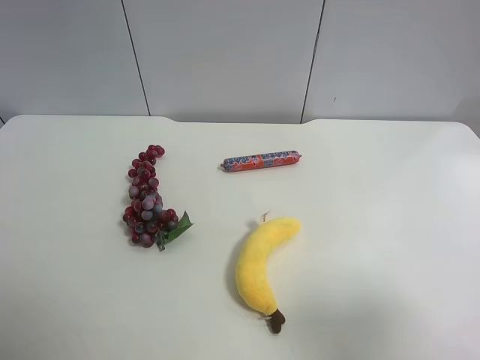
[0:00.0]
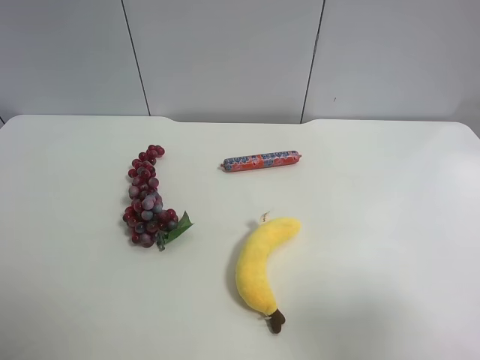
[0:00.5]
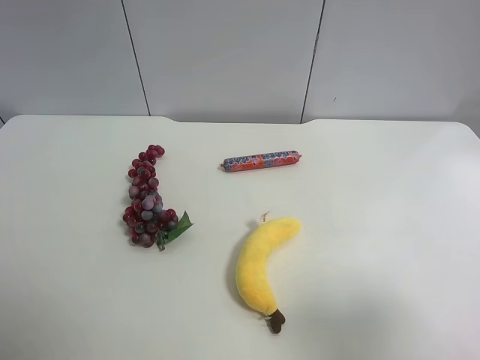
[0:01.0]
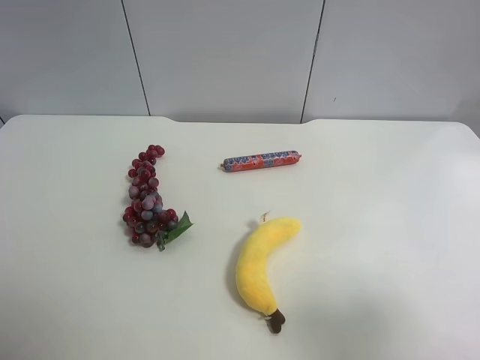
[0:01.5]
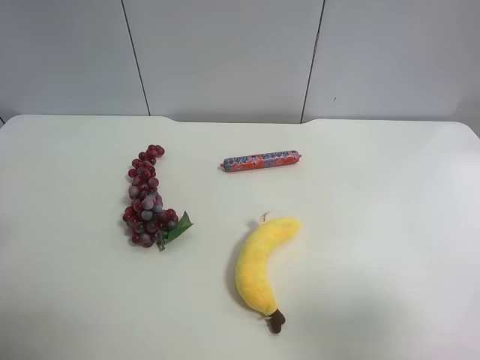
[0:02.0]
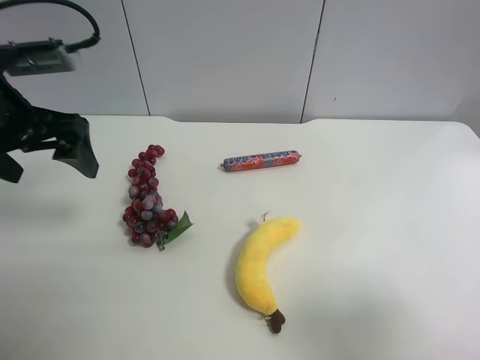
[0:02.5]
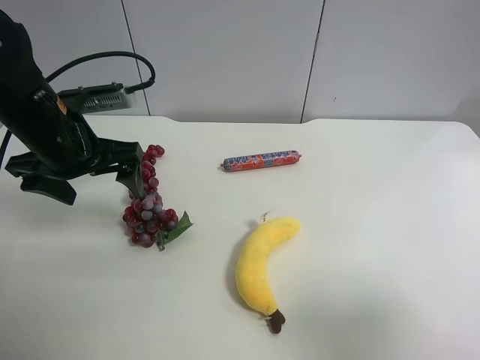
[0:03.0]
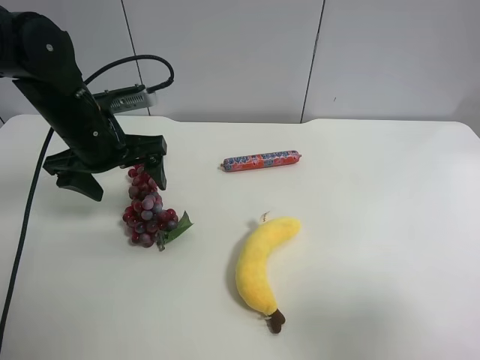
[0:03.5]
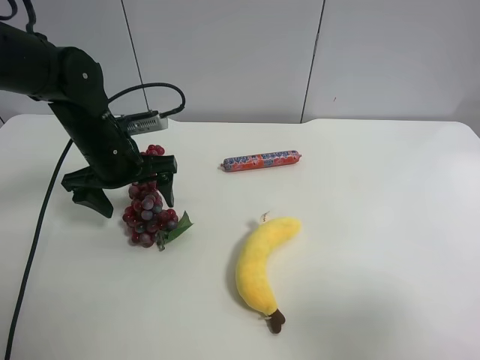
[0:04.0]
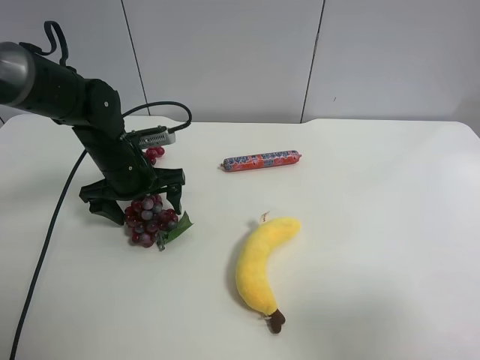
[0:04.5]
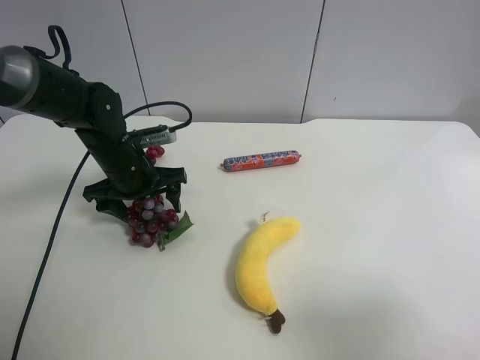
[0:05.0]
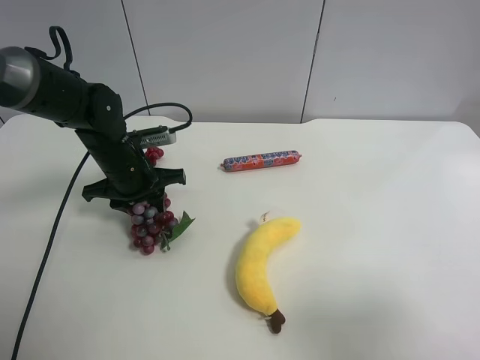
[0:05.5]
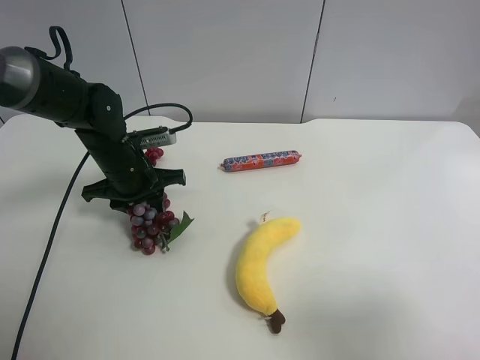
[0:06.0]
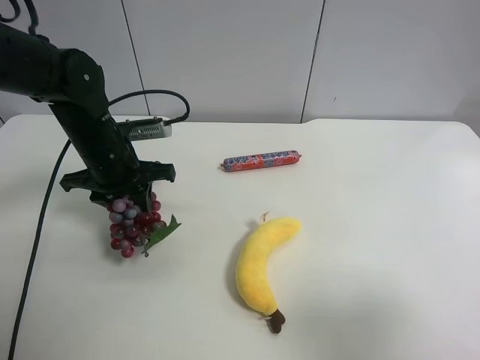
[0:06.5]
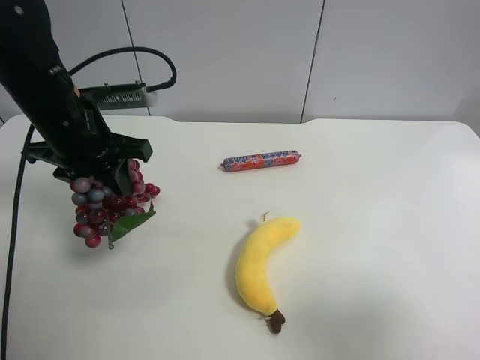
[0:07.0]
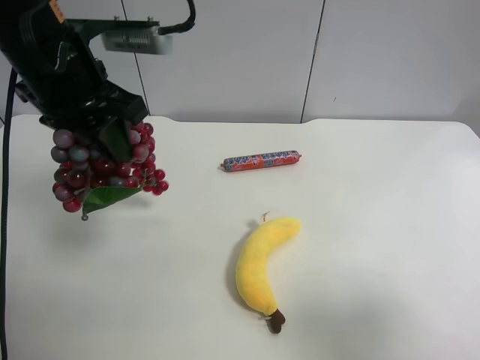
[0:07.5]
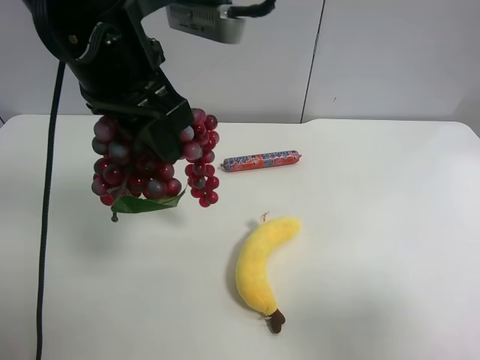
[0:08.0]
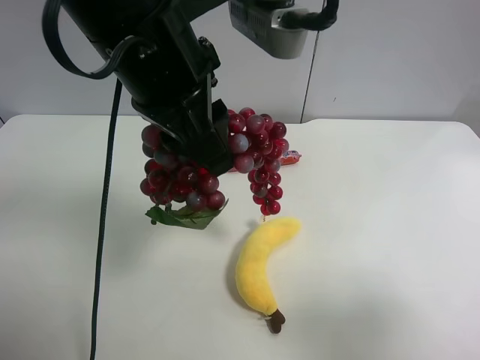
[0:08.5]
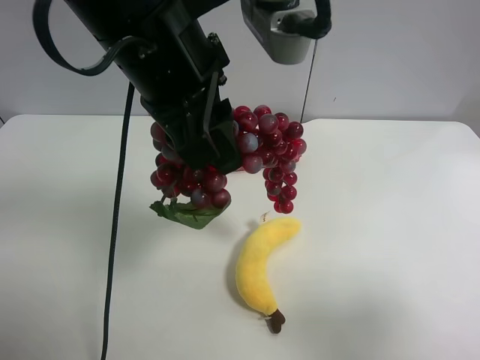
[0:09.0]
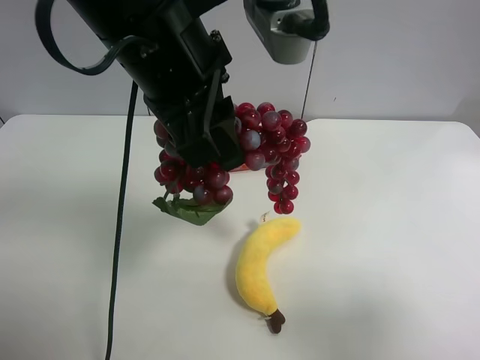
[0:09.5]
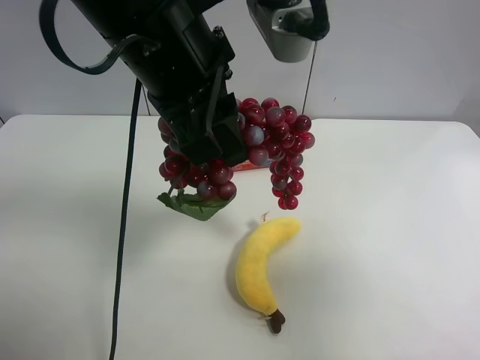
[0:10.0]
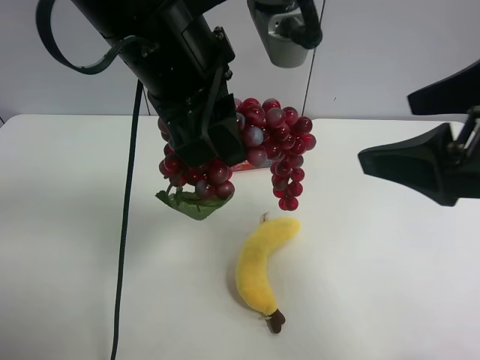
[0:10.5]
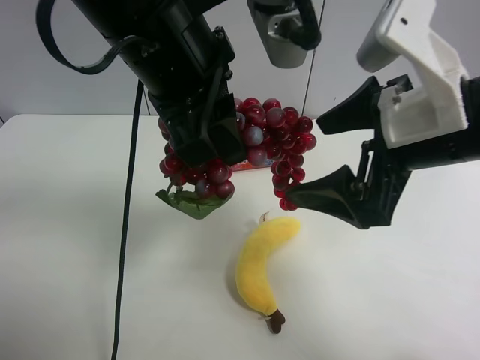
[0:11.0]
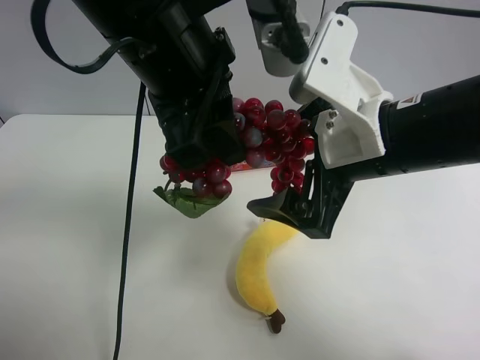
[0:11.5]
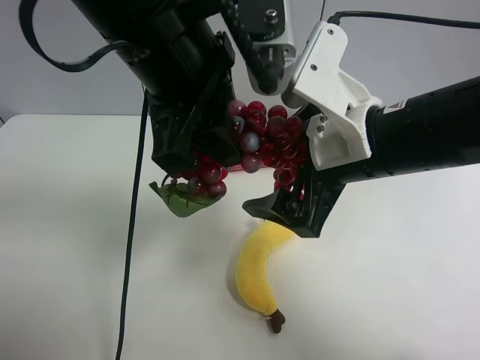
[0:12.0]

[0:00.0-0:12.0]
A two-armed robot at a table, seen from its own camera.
Task of the whole recording: use the left gripper to pick up the item and transfer it from the left gripper to the right gripper.
0:02.0 to 0:04.0: The left gripper heads downward, forward and to the right, covering roughly 25 cm.
0:04.0 to 0:06.0: The left gripper closes up.
0:06.0 to 0:08.0: The left gripper goes roughly 25 cm upward and backward.
0:08.0 to 0:10.0: The right gripper goes approximately 5 cm forward and upward.
0:10.0 to 0:12.0: The right gripper goes approximately 20 cm to the left, forward and downward.

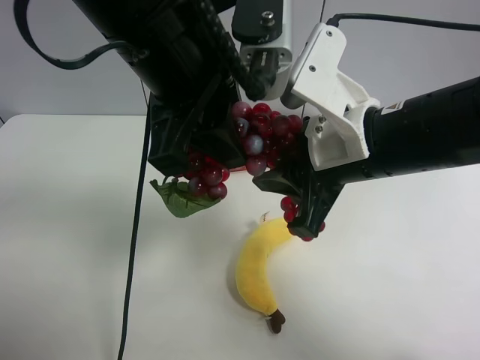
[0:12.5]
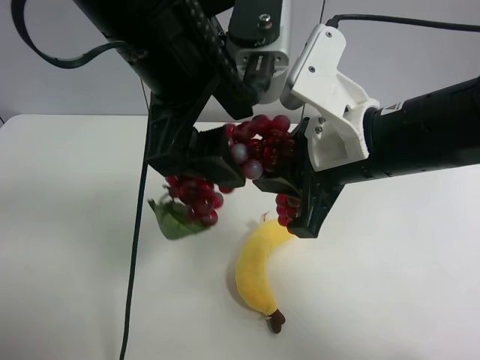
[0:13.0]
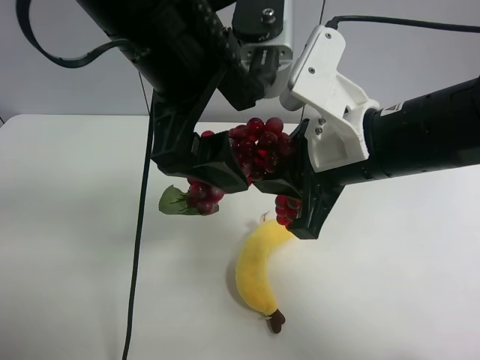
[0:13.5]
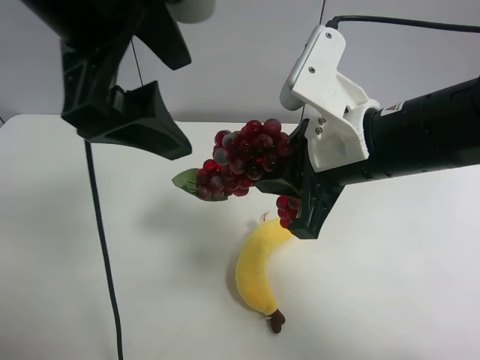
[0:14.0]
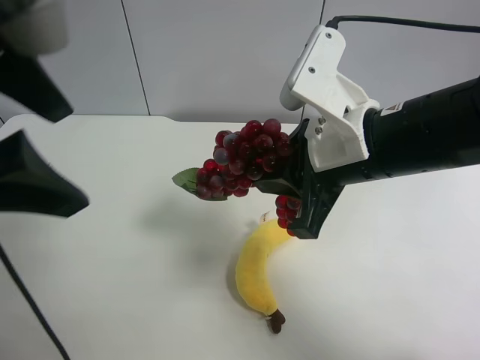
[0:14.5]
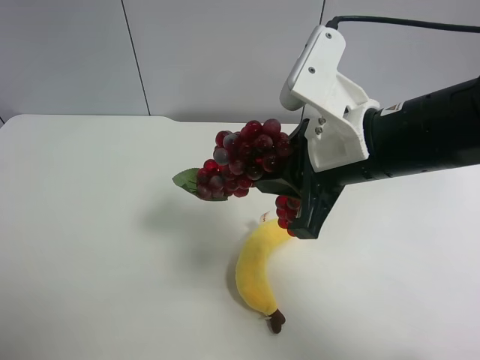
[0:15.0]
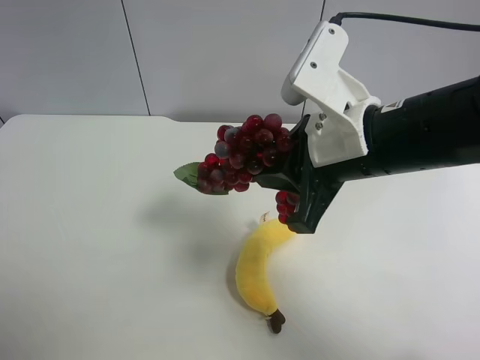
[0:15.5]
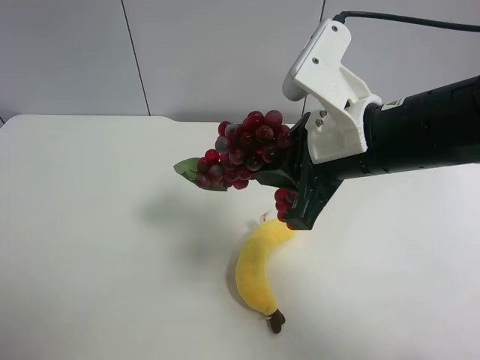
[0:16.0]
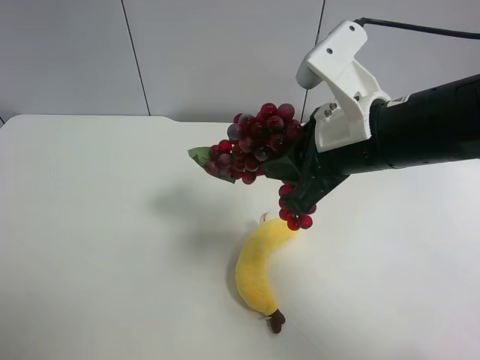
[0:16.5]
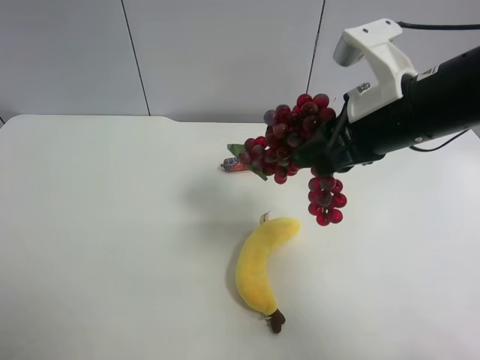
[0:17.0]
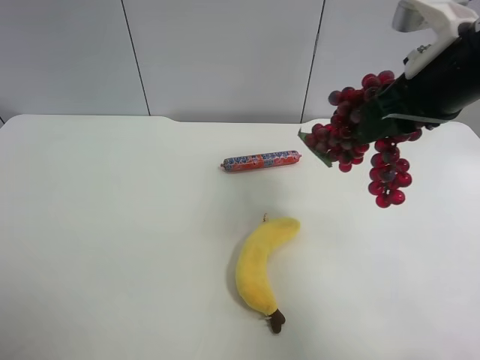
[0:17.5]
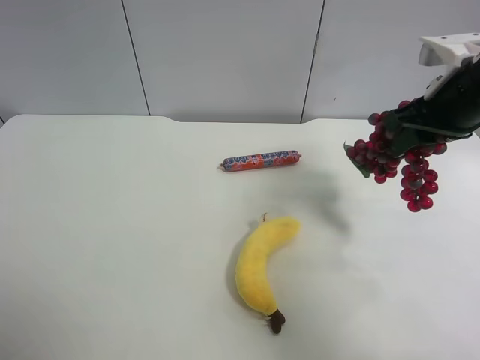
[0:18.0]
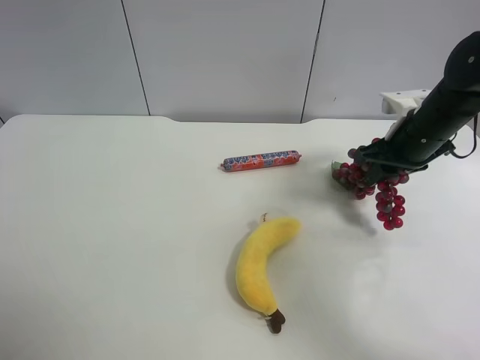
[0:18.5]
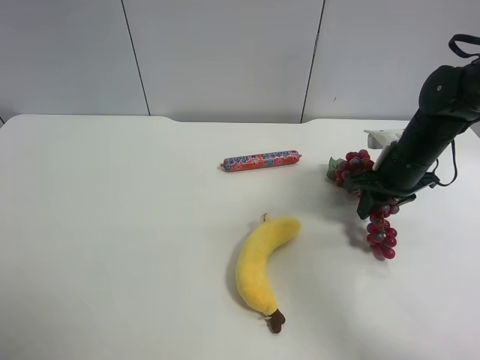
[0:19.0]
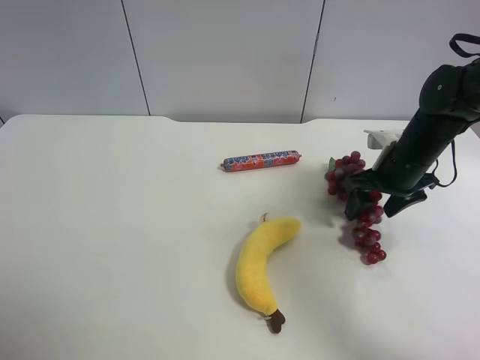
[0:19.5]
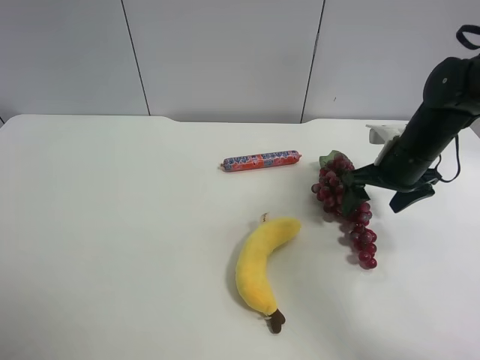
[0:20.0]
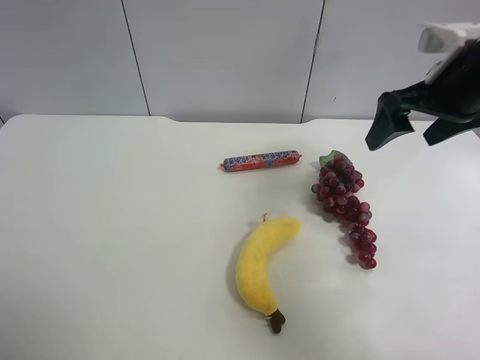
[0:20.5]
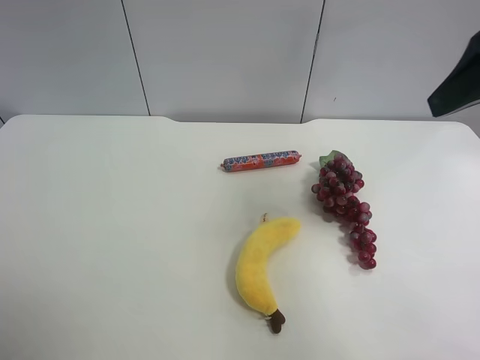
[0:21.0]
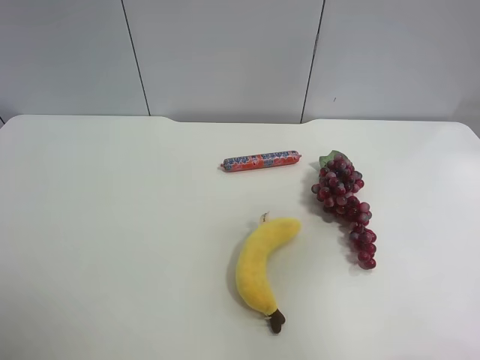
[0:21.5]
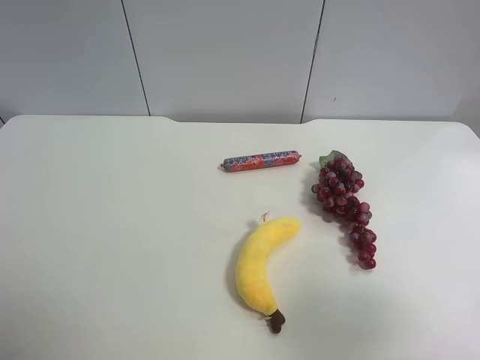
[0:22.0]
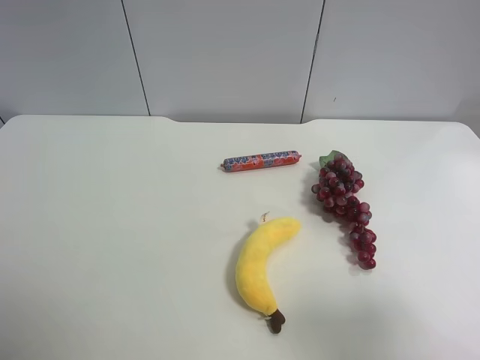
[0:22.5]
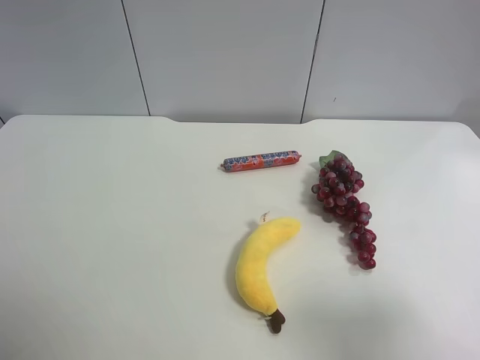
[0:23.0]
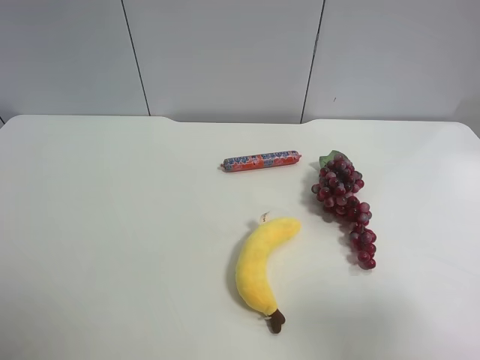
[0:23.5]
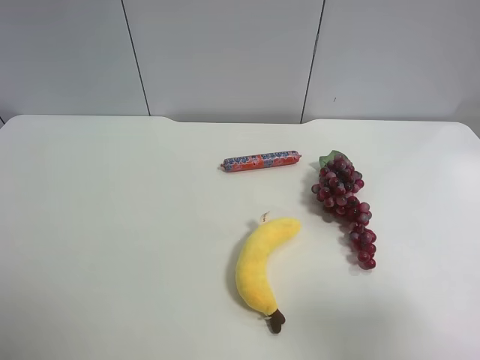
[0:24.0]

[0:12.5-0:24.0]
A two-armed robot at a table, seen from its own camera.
Task of the whole recording: use the left gripper to pick up the item and transfer it from the left gripper to the right gripper.
0:12.5 to 0:14.5: The left gripper goes some 15 cm to the left and backward, and opens up.
0:14.5 to 0:16.5: The left gripper travels to the left, backward and downward by about 20 cm.
0:16.5 to 0:18.5: The right gripper moves to the right, forward and downward, some 20 cm.
0:18.5 to 0:20.0: The right gripper opens up.
0:20.0 to 0:22.0: The right gripper heads backward and upward, covering some 35 cm.
